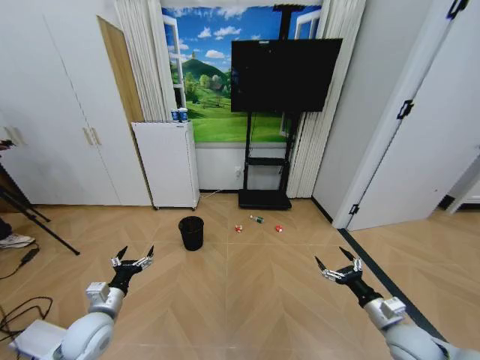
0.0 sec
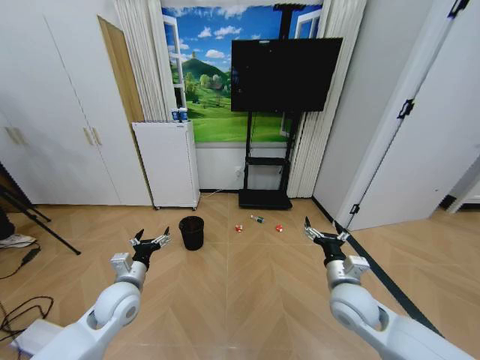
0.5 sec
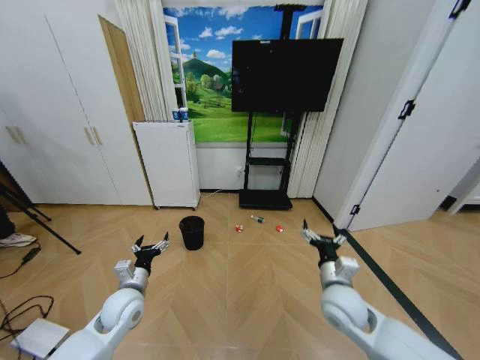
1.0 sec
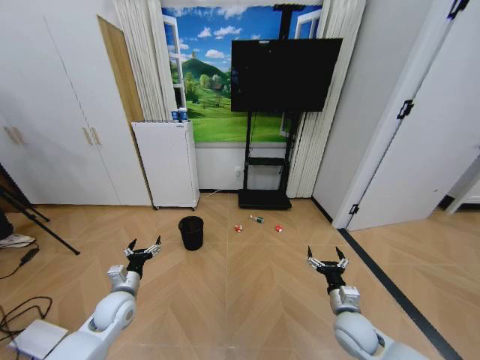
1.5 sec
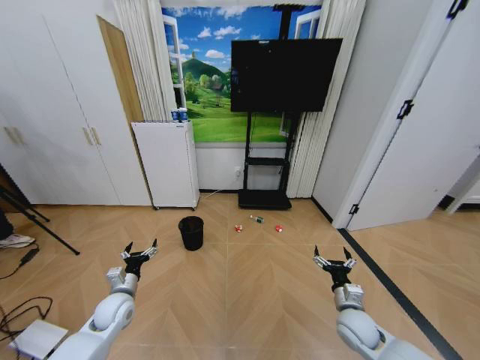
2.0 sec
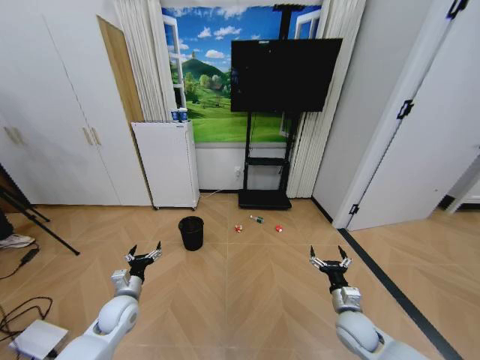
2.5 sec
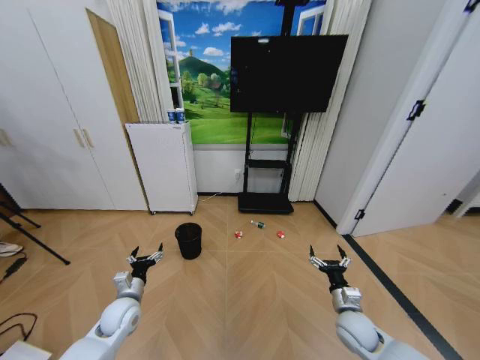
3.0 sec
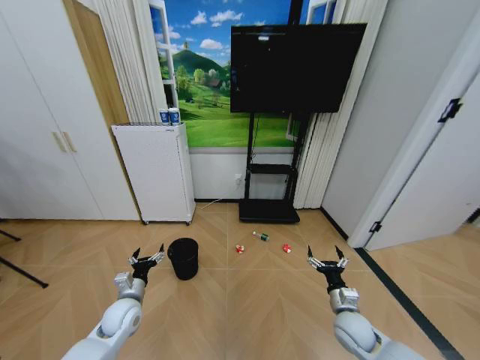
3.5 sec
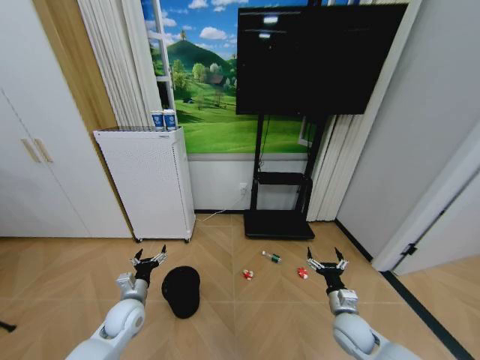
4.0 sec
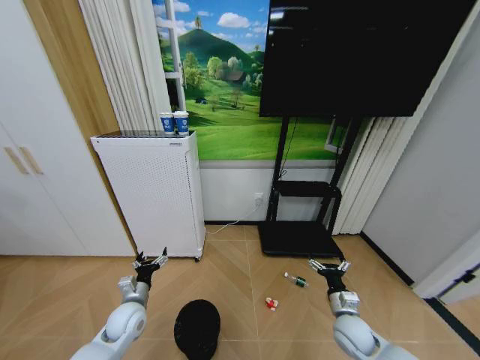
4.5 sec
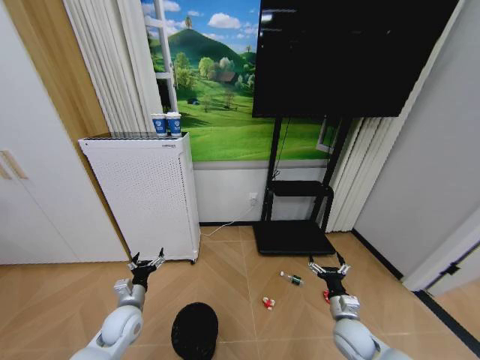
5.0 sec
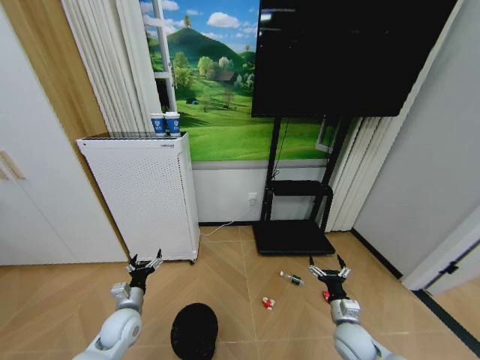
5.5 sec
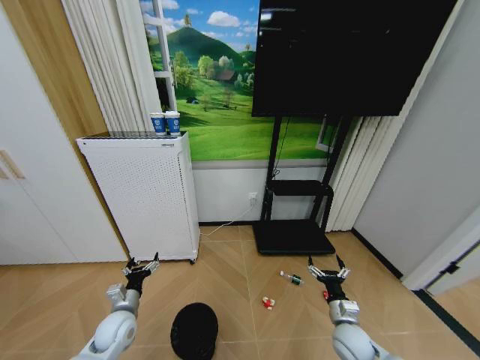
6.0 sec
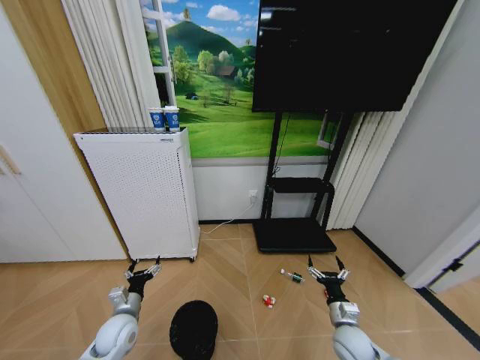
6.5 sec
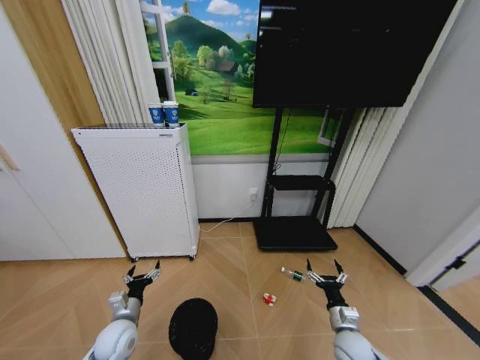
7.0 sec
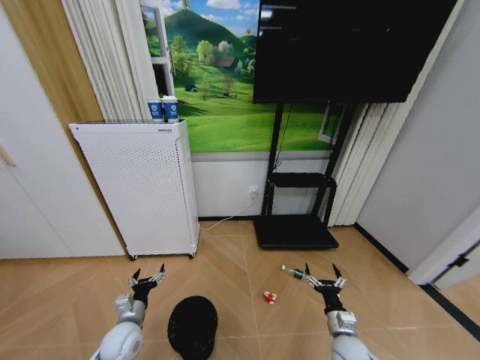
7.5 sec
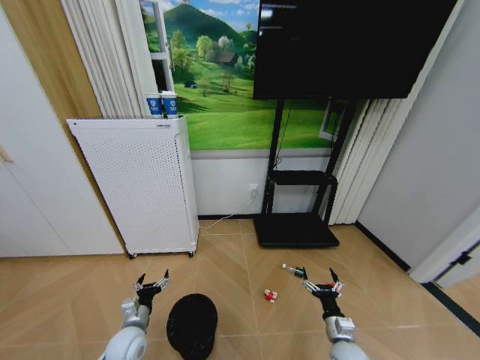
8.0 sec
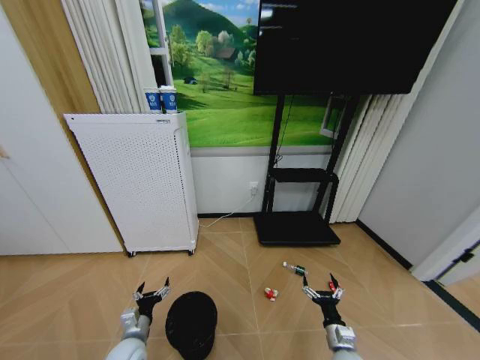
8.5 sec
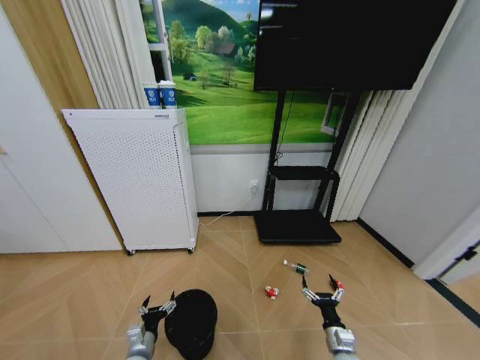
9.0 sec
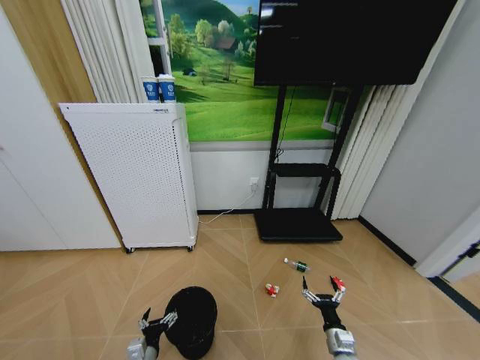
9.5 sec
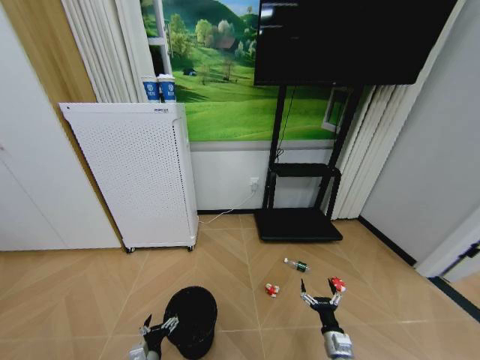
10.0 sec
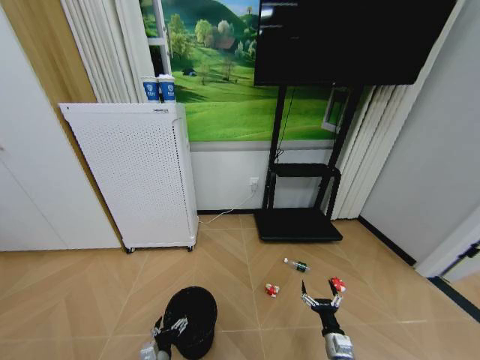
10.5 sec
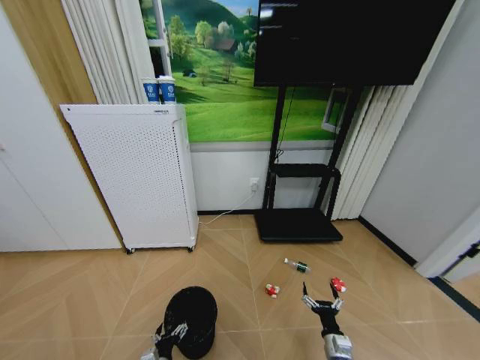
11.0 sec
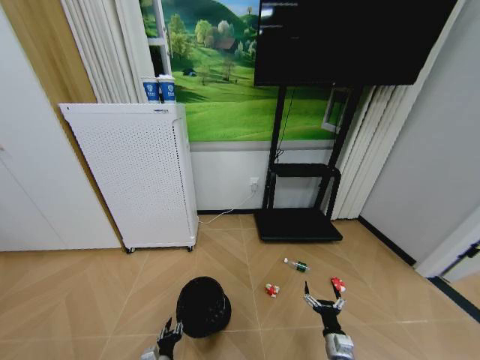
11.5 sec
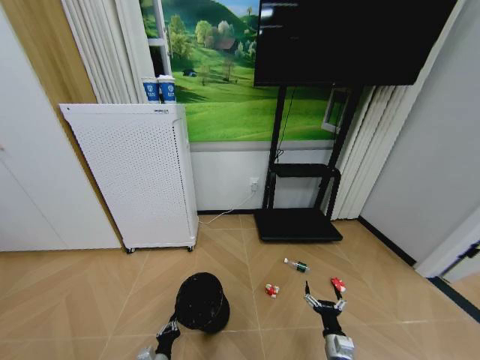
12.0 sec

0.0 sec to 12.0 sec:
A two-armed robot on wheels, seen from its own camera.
Task of the whole recording: Pick up the trash bin and place the garbage on the floor into it.
6.0 sec to 8.0 sec: The left gripper moves about 5 cm.
8.0 sec to 10.0 sec: The left gripper travels backward, downward and to the right by about 10 cm.
10.0 sec to 12.0 sec: The left gripper closes.

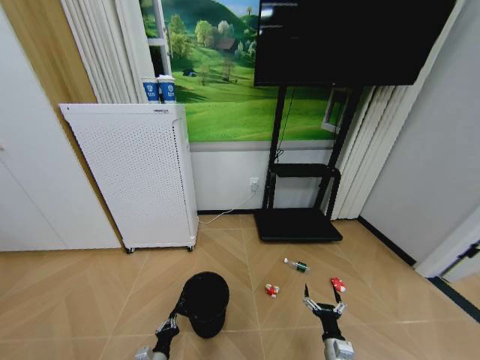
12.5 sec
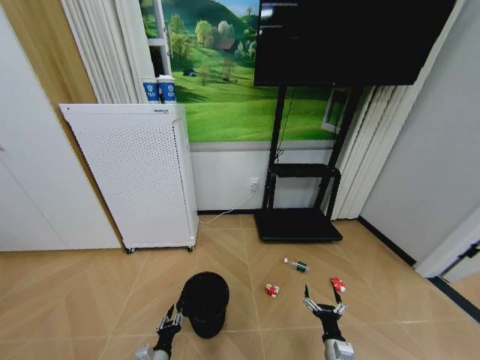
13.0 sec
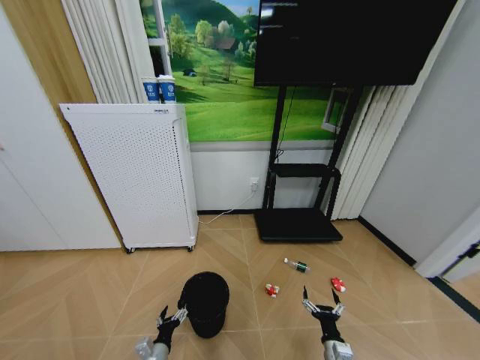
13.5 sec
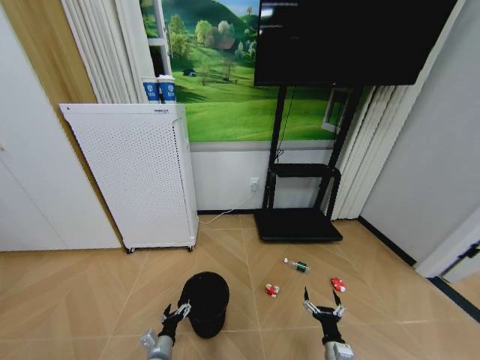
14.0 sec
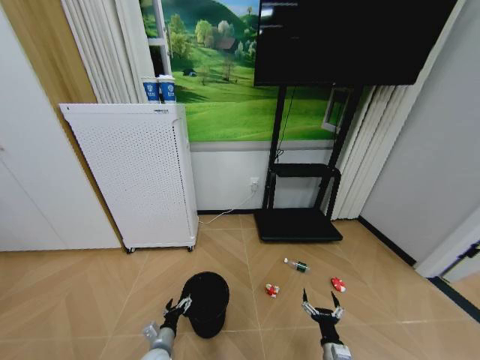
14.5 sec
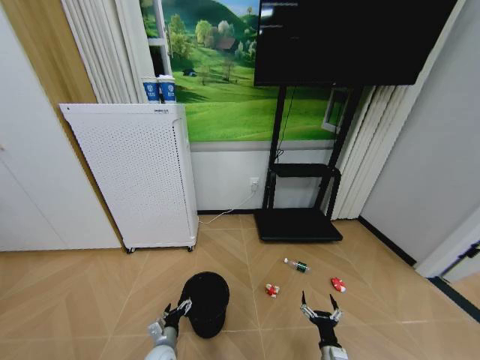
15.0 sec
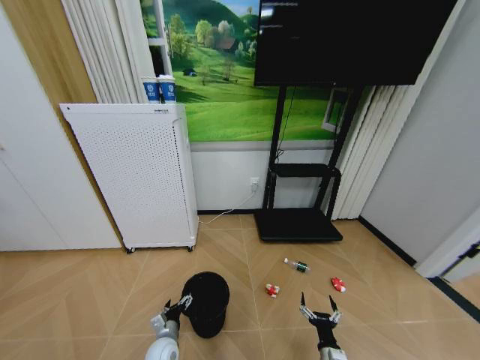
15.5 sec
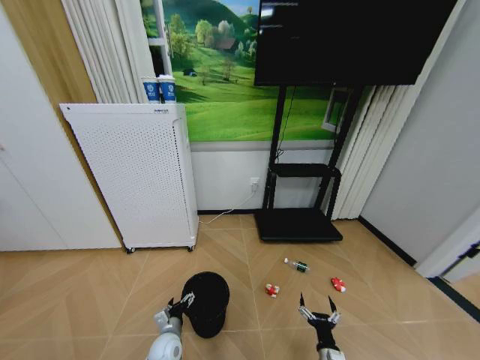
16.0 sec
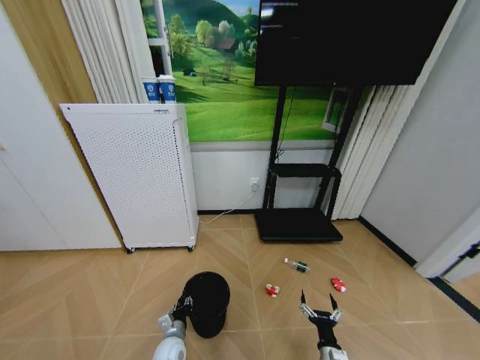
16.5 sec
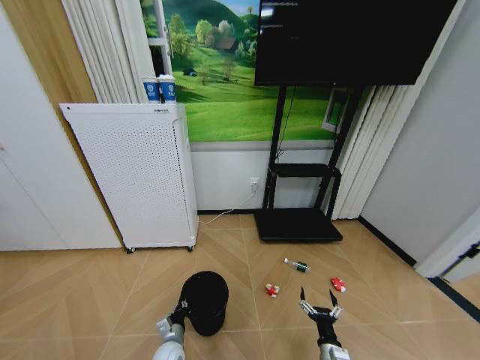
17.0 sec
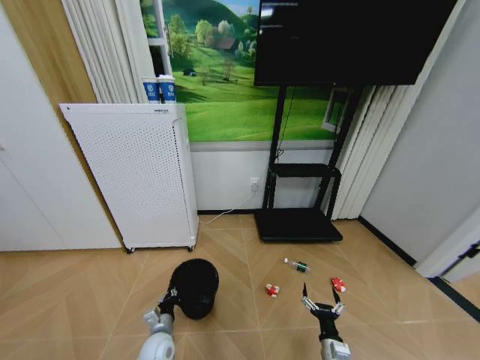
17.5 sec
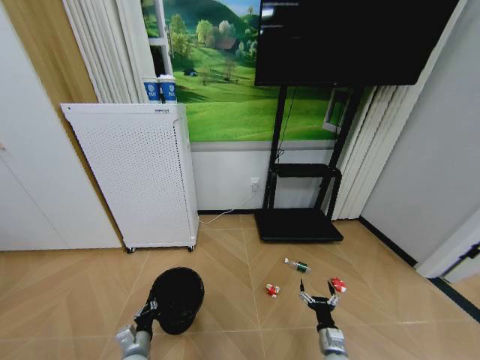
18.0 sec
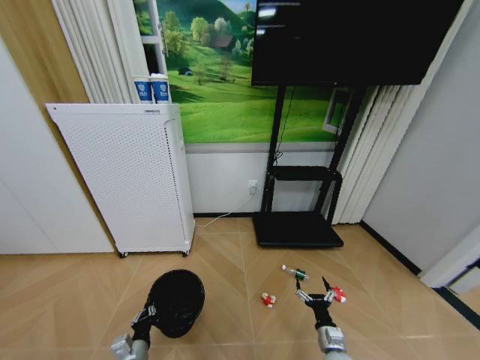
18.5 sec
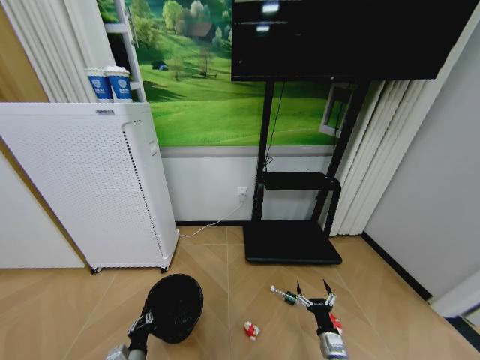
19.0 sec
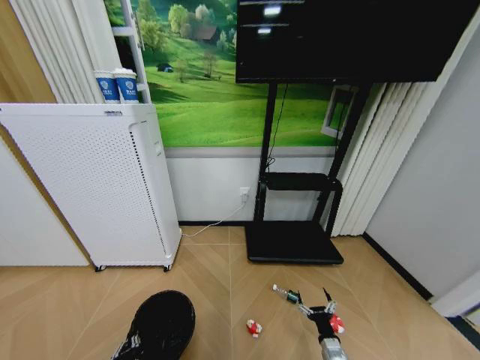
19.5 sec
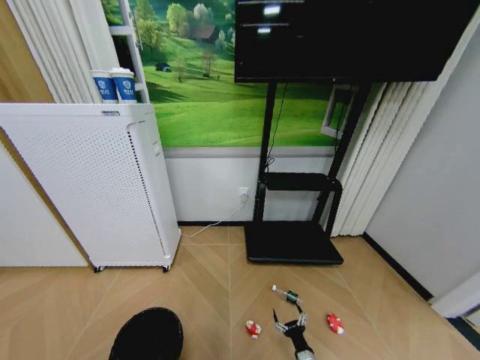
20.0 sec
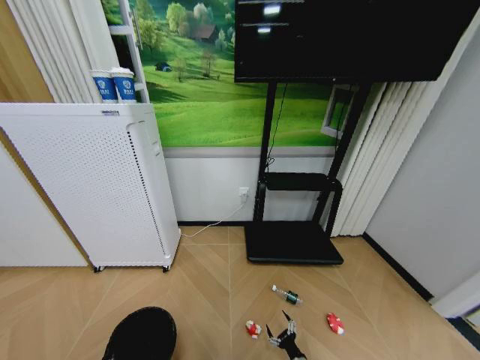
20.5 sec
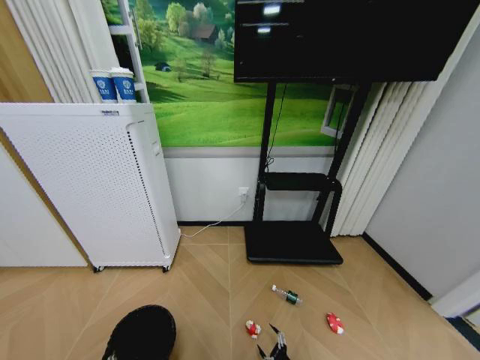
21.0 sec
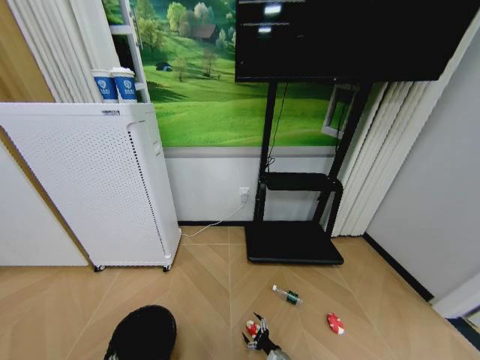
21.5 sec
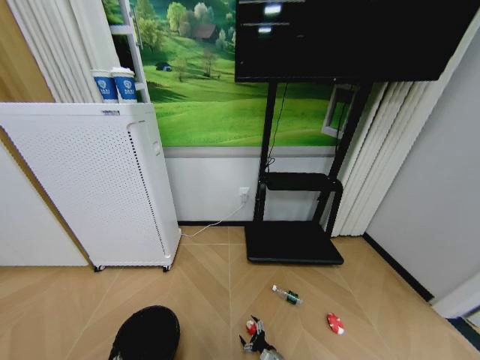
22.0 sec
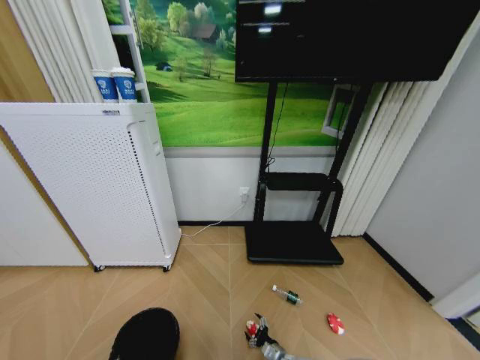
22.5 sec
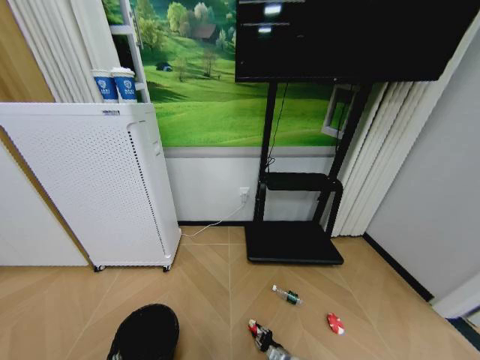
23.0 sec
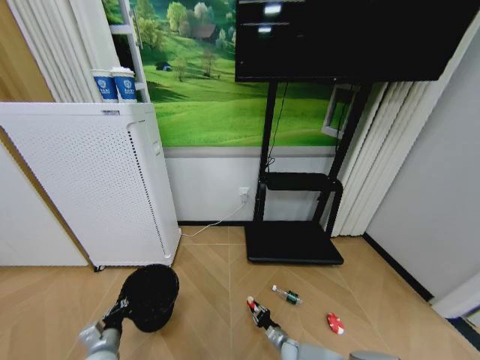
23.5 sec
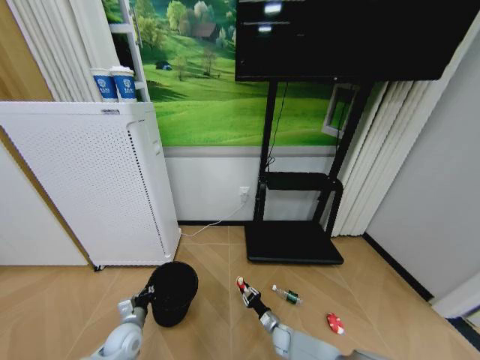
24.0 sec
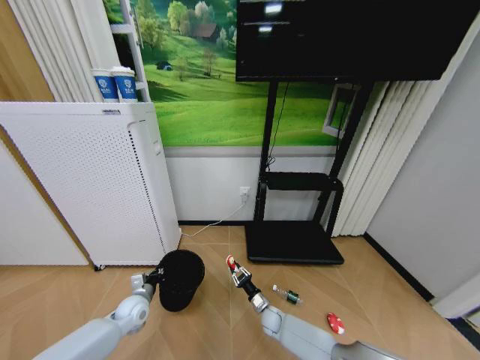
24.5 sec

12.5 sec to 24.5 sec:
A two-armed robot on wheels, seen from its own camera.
Task of the whole recording: Pick up the trash bin and place the garbage on the floor into it.
12.5 sec to 14.5 sec: The left gripper heads forward, covering about 5 cm, and opens.
14.5 sec to 16.5 sec: The left gripper ends up some 5 cm from where it was, and closes up.
16.5 sec to 18.5 sec: The left gripper travels backward, to the left and upward by roughly 15 cm, and closes up, while the right gripper changes place by some 5 cm.
18.5 sec to 20.5 sec: The right gripper travels downward by some 15 cm; the left gripper heads backward, covering about 10 cm.
20.5 sec to 22.5 sec: The right gripper shifts approximately 10 cm forward and to the left.
22.5 sec to 24.5 sec: The right gripper shifts approximately 20 cm forward, upward and to the left, and closes its fingers; the left gripper travels forward by some 30 cm.

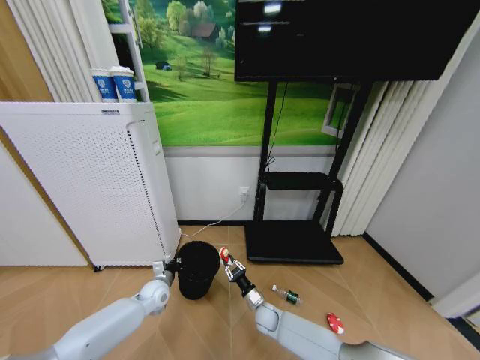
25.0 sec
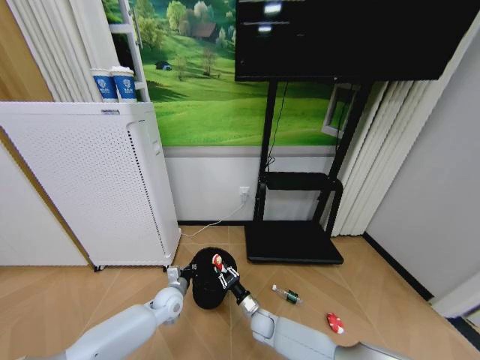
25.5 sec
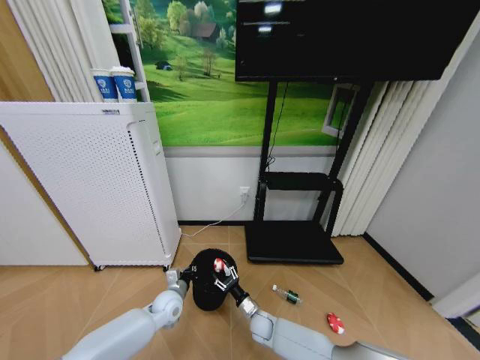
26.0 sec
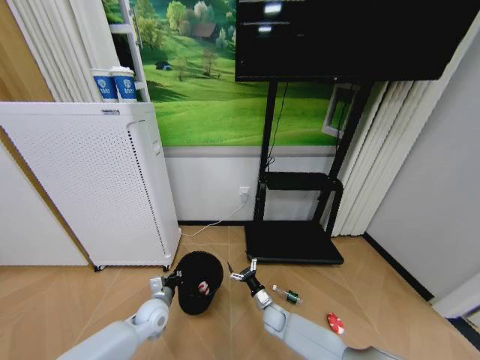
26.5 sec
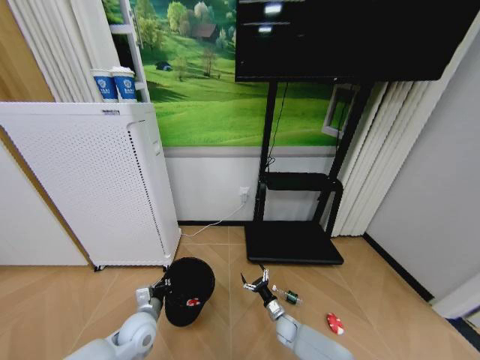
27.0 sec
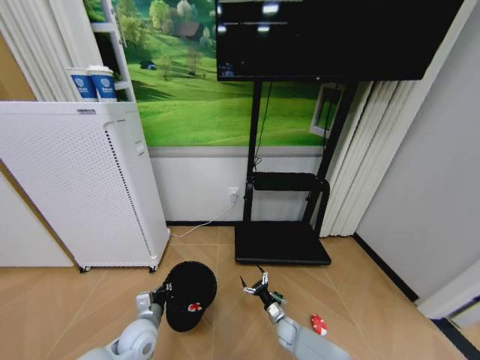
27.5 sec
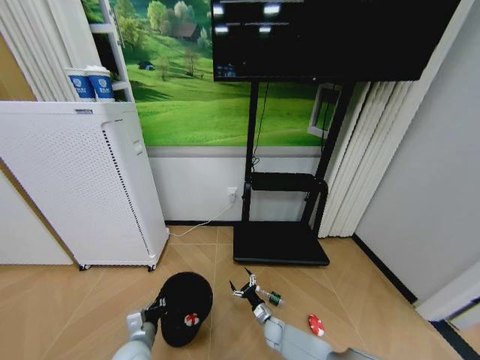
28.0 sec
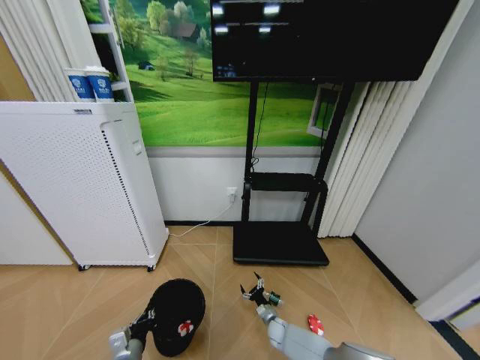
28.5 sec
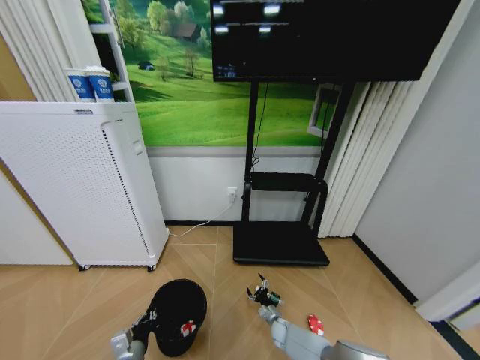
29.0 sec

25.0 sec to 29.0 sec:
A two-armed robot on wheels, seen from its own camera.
Task of the whole recording: Pick up the trash bin and place the garbage on the floor into it.
25.0 sec to 27.0 sec: The left gripper shifts about 10 cm backward; the right gripper is displaced to the right and downward by about 10 cm, and opens its fingers.
27.0 sec to 29.0 sec: The right gripper is displaced downward by about 5 cm; the left gripper shifts about 10 cm backward.
